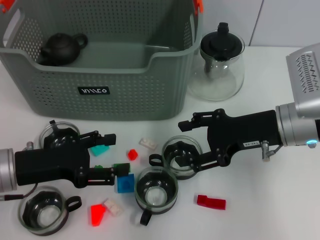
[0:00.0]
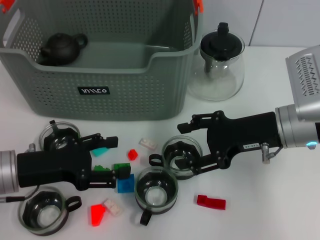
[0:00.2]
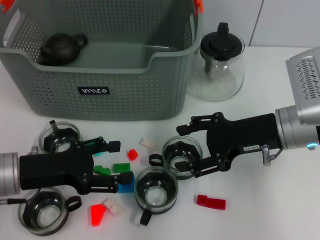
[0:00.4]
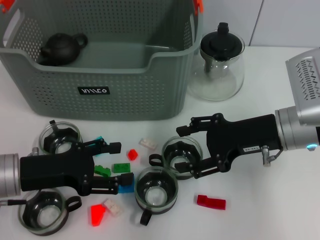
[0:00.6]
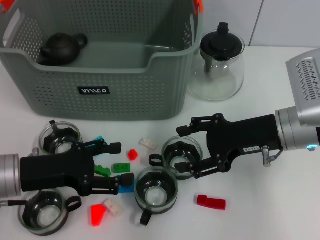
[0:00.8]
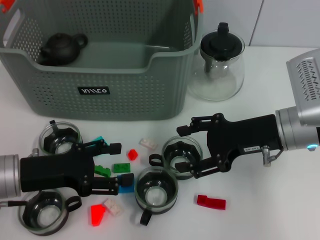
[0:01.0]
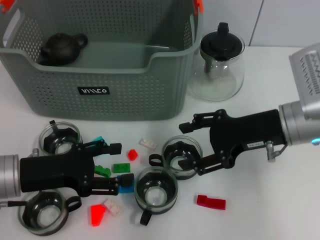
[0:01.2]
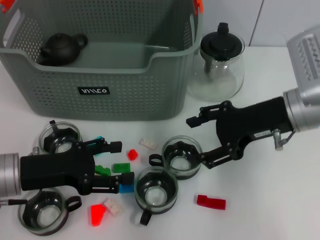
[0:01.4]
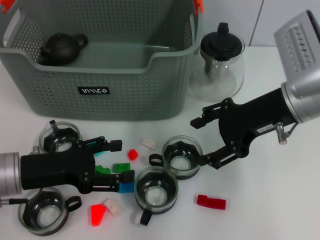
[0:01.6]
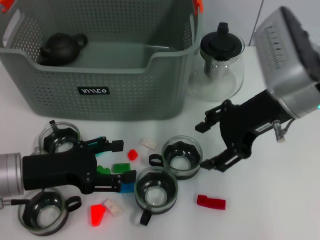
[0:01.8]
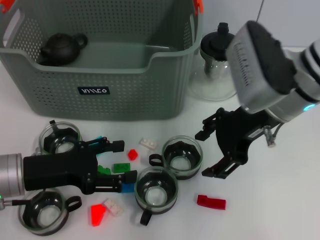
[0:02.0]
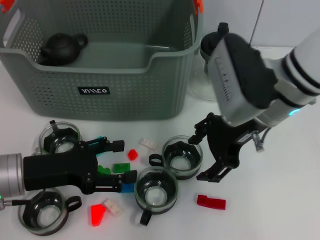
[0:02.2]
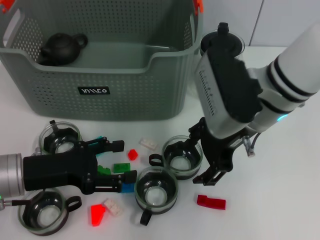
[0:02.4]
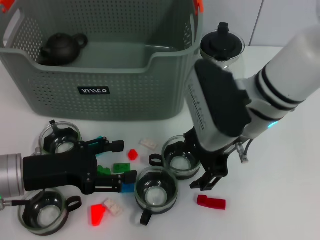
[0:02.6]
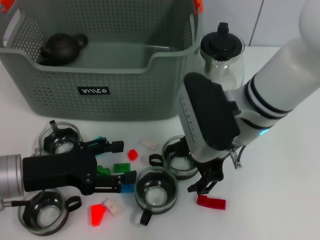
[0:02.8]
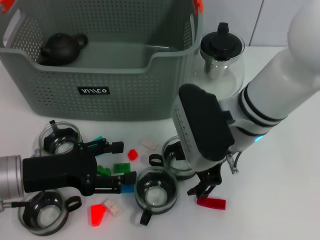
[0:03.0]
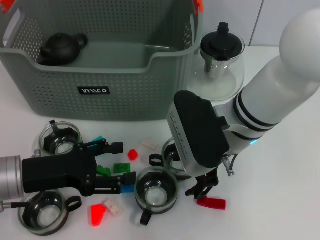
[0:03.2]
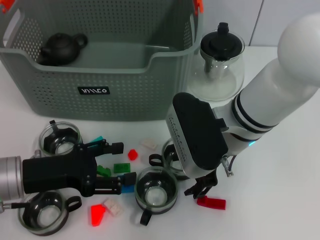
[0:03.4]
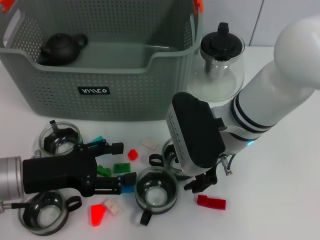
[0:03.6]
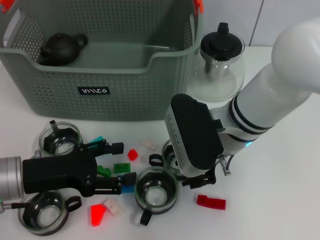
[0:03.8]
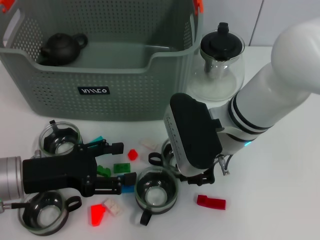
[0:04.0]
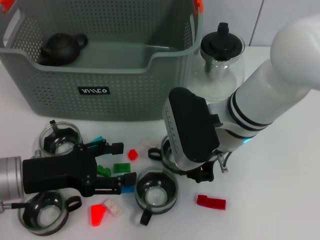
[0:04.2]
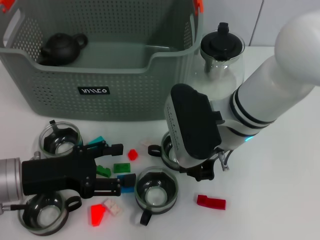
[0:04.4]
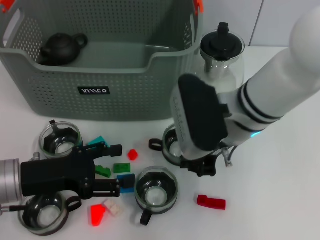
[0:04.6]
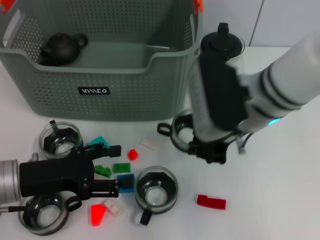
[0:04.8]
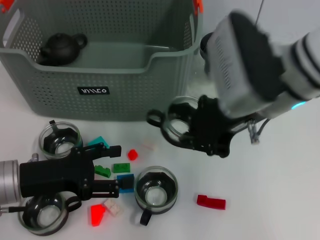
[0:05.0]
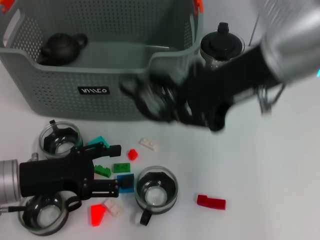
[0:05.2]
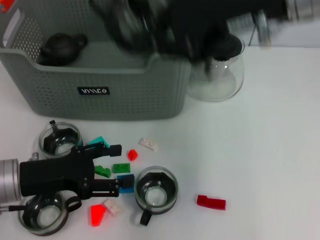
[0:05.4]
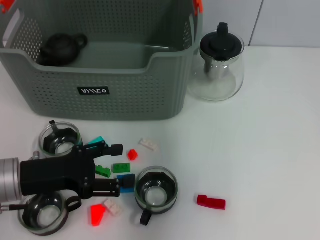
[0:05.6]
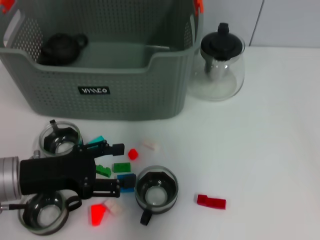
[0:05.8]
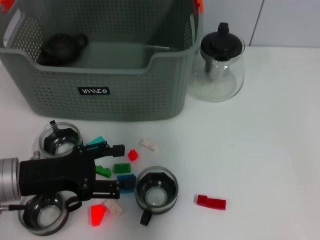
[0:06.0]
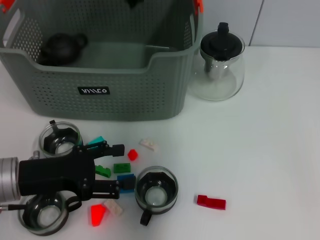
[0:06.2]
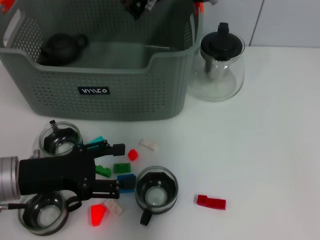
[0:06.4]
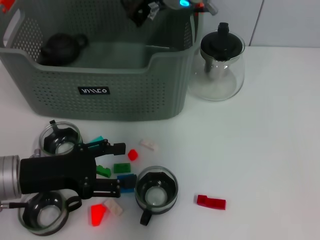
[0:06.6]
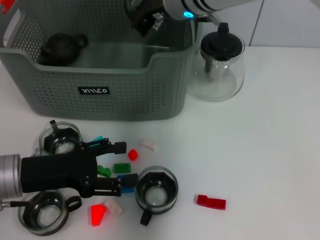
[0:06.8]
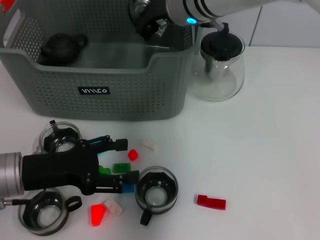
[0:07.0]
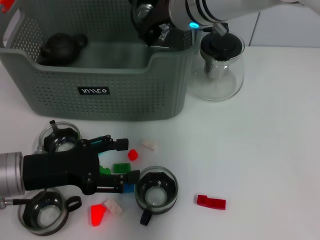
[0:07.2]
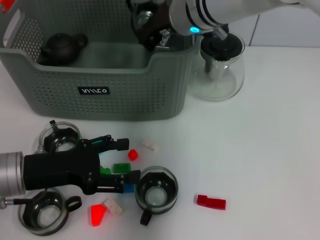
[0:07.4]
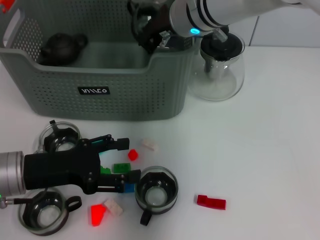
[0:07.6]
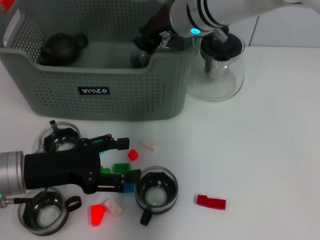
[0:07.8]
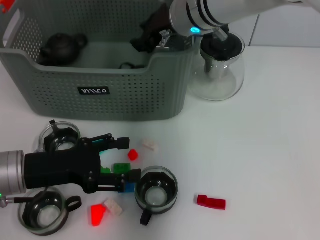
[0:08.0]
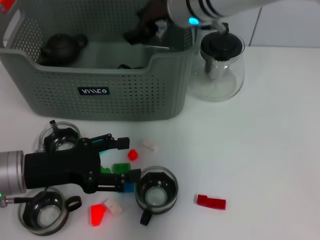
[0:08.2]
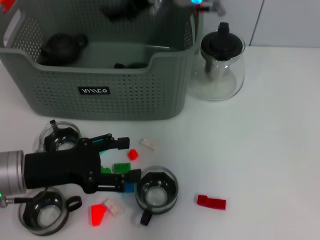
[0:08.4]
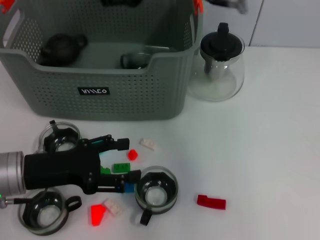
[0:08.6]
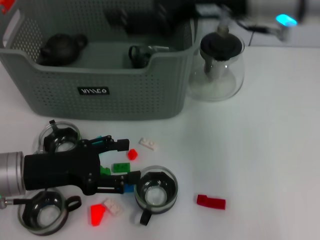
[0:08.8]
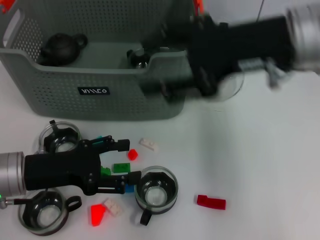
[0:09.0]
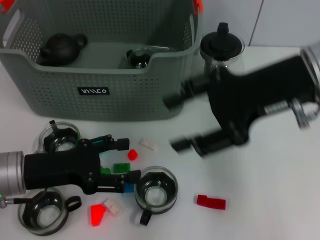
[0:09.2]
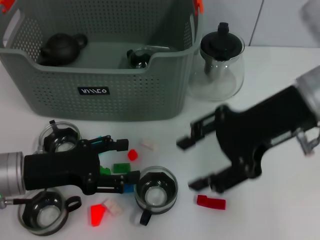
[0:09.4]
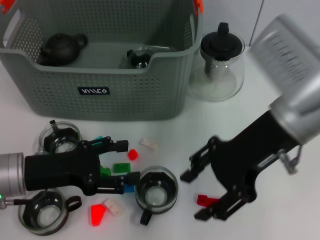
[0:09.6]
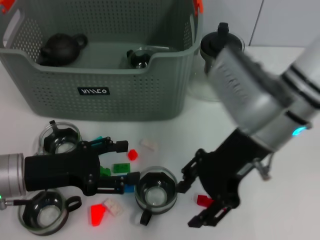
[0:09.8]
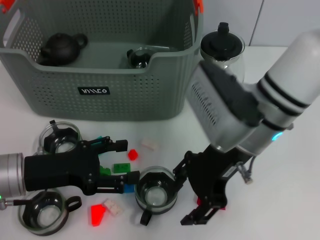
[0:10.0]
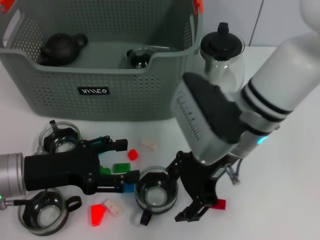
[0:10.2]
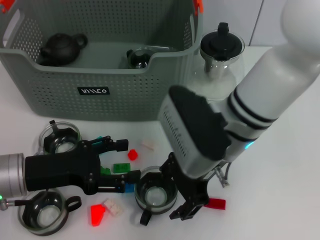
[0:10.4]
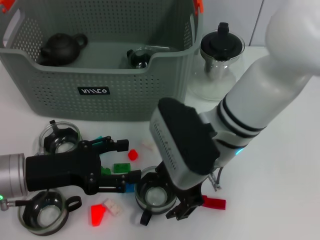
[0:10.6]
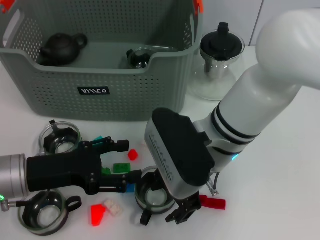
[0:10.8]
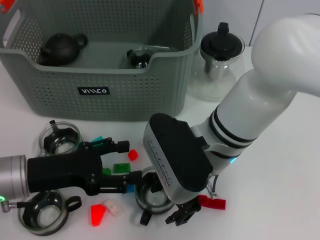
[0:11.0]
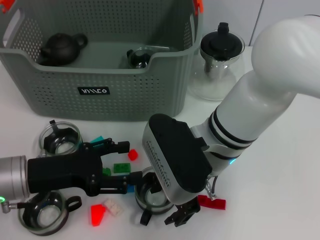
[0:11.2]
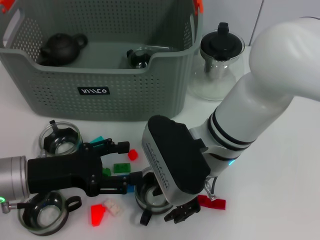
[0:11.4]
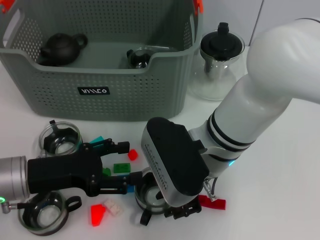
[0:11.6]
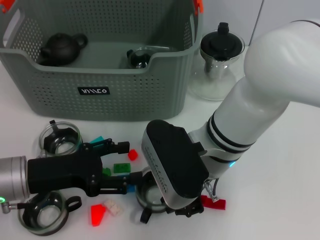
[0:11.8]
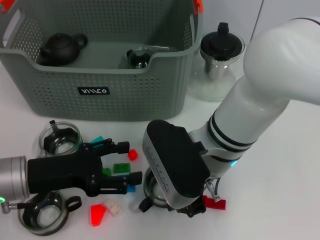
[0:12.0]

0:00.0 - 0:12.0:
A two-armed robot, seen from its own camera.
Task of the whole recording: pick up the teacup on the table and place it into the storage bin, pick up the block on the table and place it into the storage bin.
Step, 0:00.0 - 0:04.0: Grasp the cup with right gripper.
Step, 0:04.4 - 0:08.2: Place the cup in the storage box with right gripper.
0:00.0 - 0:01.6: The right gripper is displaced upward by approximately 5 cm.
0:01.6 - 0:03.0: The right gripper is displaced to the left by roughly 10 cm.
0:03.0 - 0:04.4: The right gripper closes up.
0:04.4 - 0:06.0: The right gripper travels upward and forward by roughly 20 cm.
0:06.0 - 0:07.6: The right gripper moves downward, approximately 10 cm.
0:07.6 - 0:09.0: The right gripper shifts some 20 cm to the right, backward and upward, and opens.
0:09.0 - 0:10.4: The right gripper is displaced downward and to the left by roughly 15 cm.
0:10.4 - 0:12.0: The right gripper closes up.

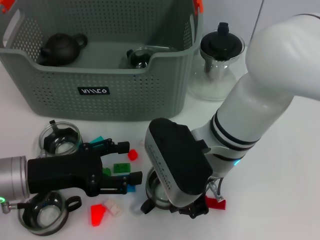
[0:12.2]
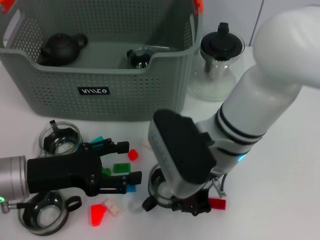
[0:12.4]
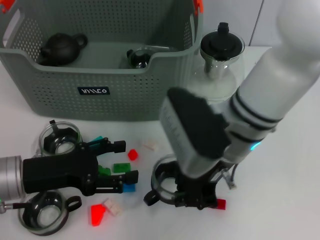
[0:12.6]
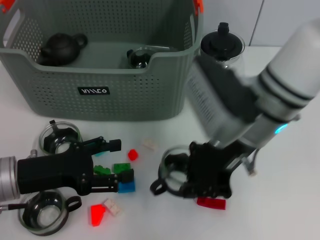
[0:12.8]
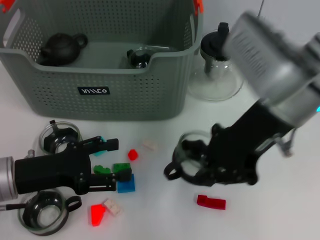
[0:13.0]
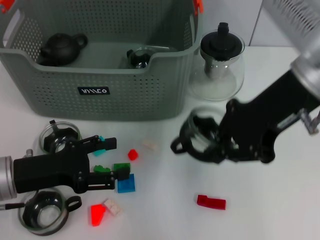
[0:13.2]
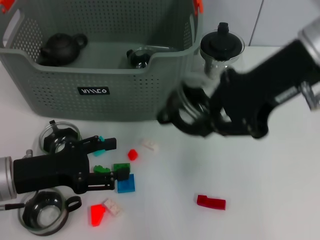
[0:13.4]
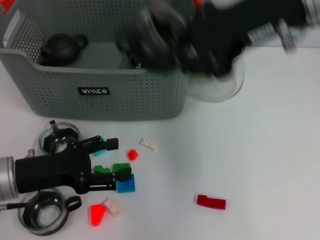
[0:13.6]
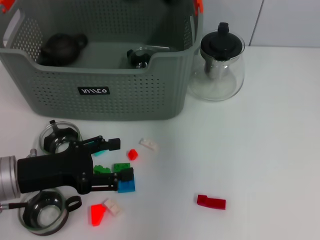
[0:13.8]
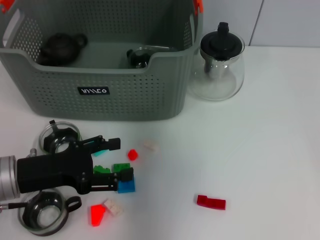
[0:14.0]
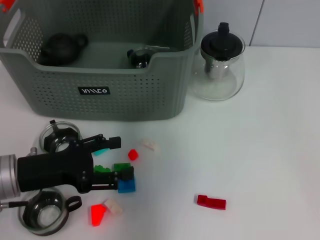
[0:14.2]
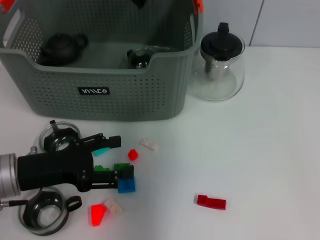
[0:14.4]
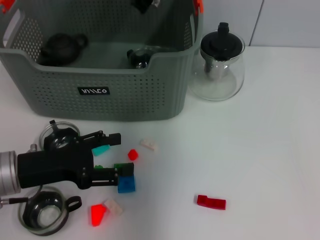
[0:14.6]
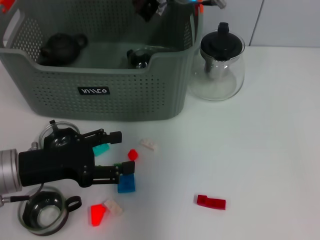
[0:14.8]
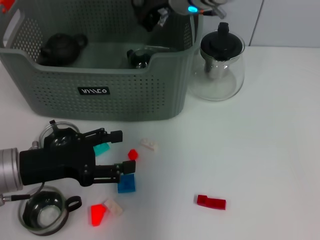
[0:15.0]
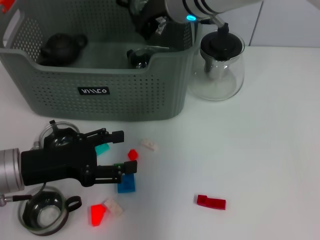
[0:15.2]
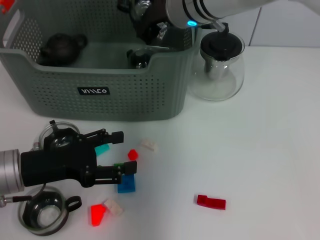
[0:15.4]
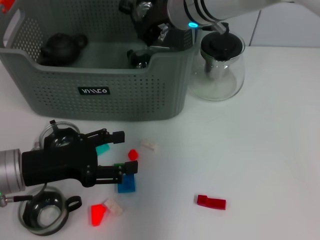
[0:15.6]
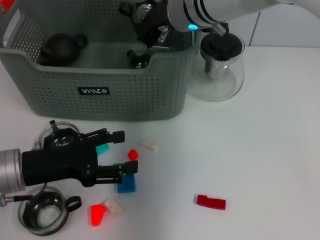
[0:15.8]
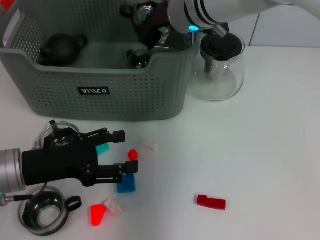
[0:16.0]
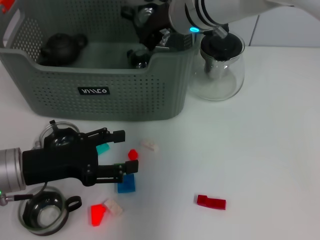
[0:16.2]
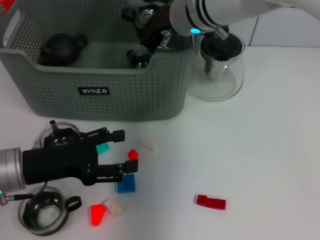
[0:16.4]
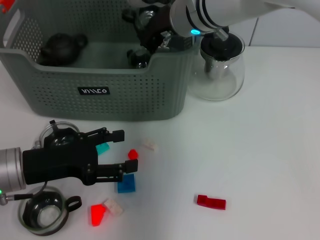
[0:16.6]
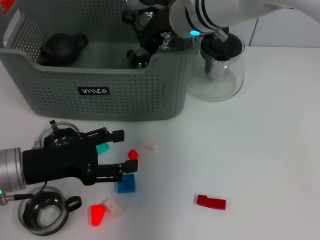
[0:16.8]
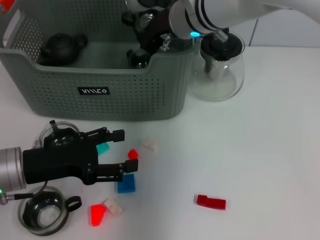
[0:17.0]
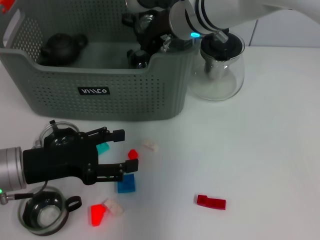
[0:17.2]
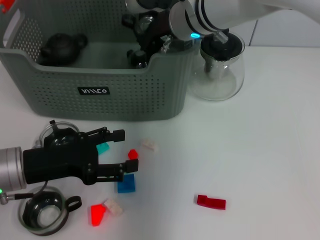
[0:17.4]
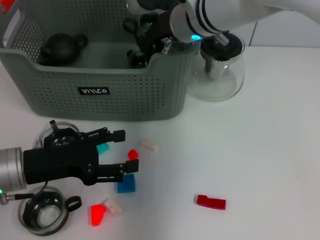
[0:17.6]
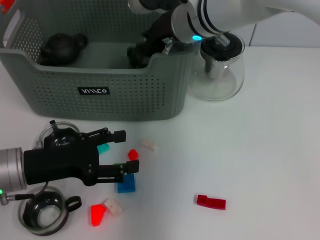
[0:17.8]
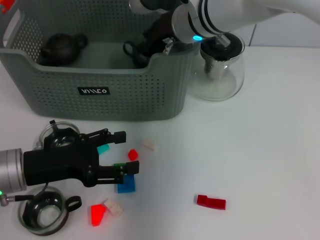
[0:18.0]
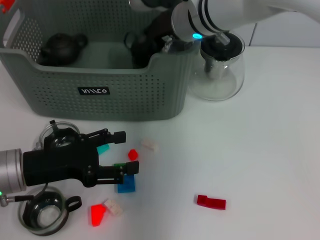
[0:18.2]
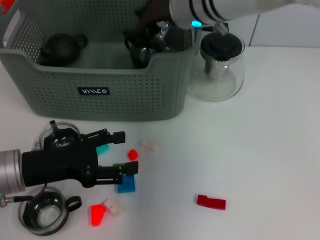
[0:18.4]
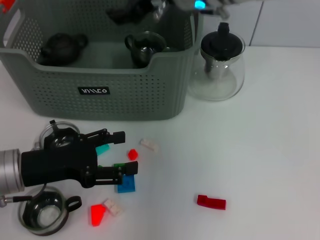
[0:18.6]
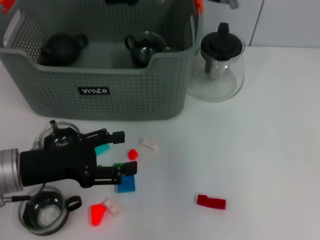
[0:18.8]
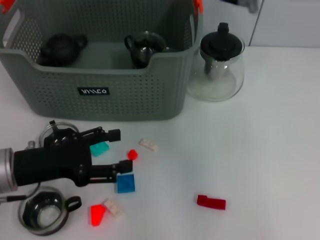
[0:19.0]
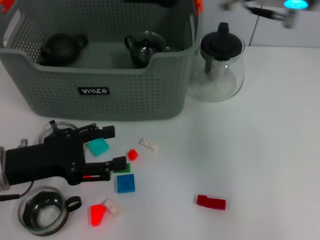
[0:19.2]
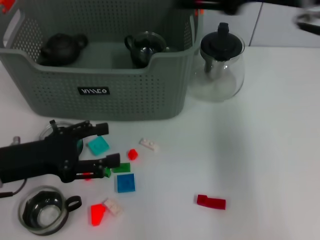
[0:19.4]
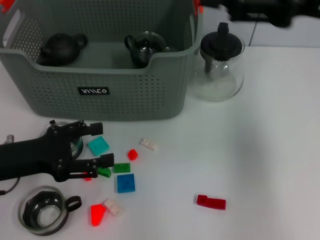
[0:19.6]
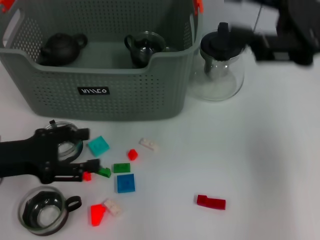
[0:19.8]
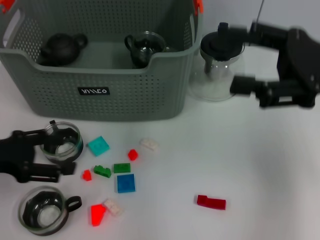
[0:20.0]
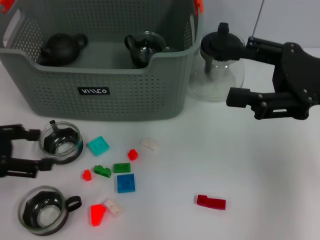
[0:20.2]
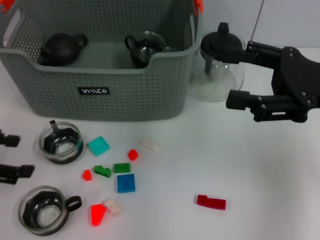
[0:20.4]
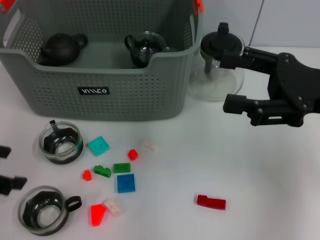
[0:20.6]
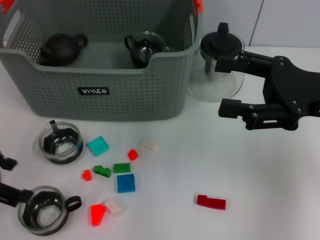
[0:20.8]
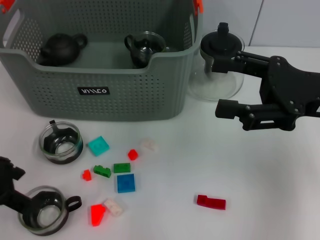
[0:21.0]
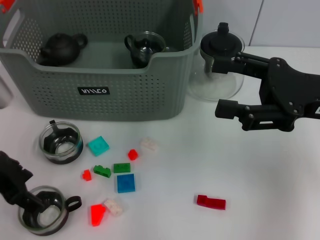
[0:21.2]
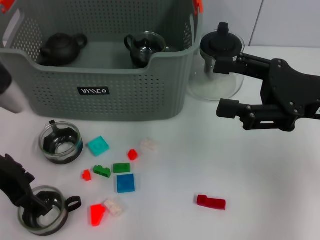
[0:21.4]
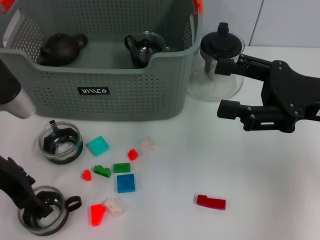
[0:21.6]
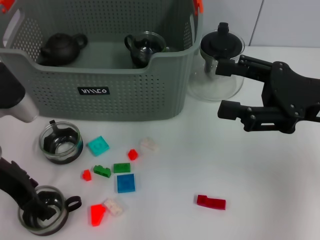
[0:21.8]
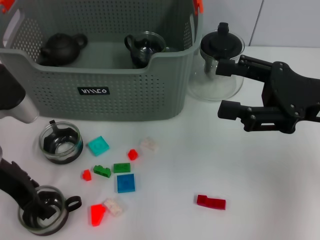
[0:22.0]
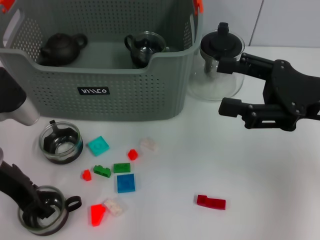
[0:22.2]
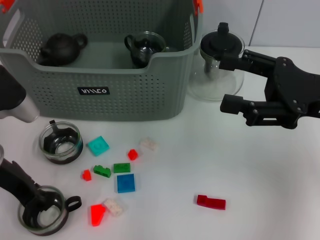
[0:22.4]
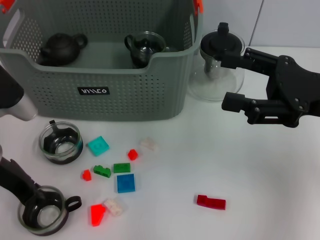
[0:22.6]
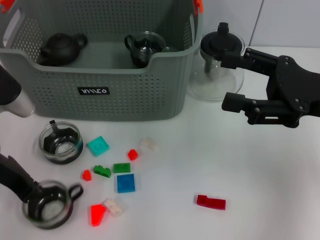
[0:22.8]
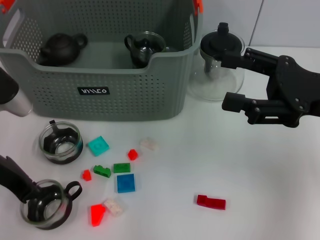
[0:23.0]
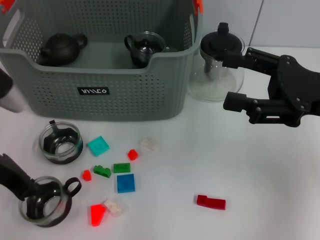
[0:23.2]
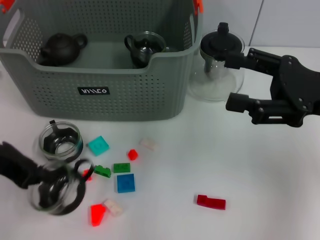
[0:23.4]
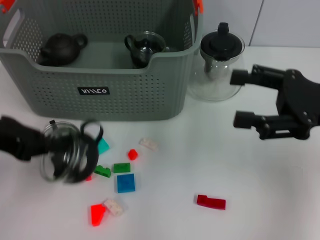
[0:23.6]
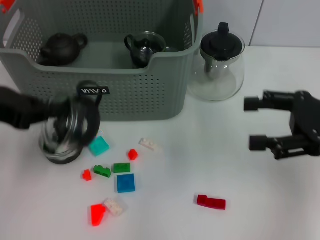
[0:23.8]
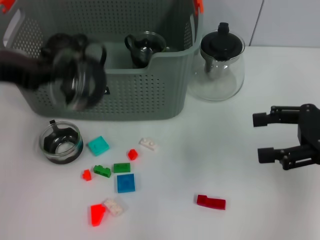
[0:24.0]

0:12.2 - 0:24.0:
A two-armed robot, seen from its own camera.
Task of the whole recording: pick up the teacup on the table and place it into the storage bin, pick up the block on the table and place it into the storage bin.
Step, 0:12.2 - 0:18.8: Place the cup in the storage box with right gripper.
Step, 0:19.0 - 0:23.2: Grasp the cup with left gripper.
0:12.2 - 0:13.6: The right gripper is displaced upward and to the right by about 20 cm.
0:13.6 - 0:15.2: The right gripper travels forward, to the left and downward by roughly 20 cm.
0:15.2 - 0:16.6: The grippers stay close to where they were, moving slightly.
0:16.6 - 0:18.2: The two grippers keep their place.
0:18.2 - 0:19.6: The right gripper moves to the right and backward, about 20 cm, and opens up.
0:19.6 - 0:21.0: The right gripper moves downward, roughly 10 cm; the left gripper moves upward, roughly 10 cm.
0:21.0 - 0:22.6: The left gripper shifts by some 5 cm, and closes.
0:22.6 - 0:24.0: The left gripper goes roughly 10 cm upward, and closes its fingers, while the right gripper heads to the right, covering about 5 cm.
